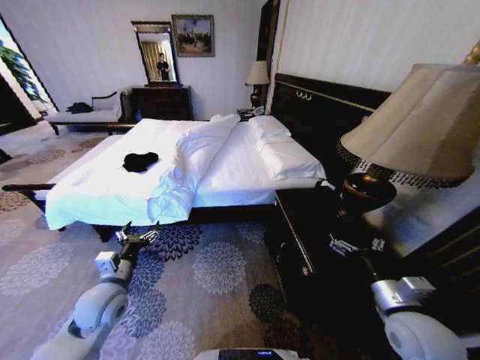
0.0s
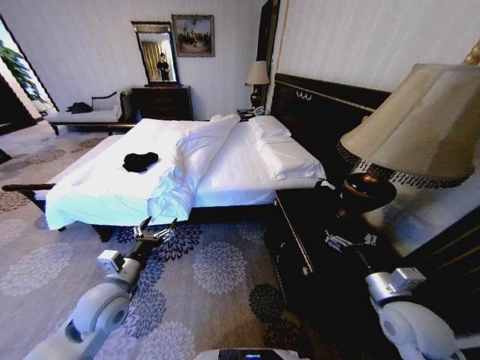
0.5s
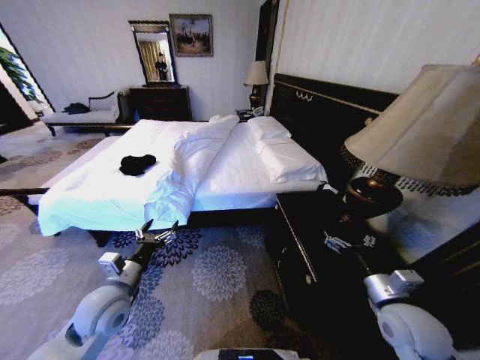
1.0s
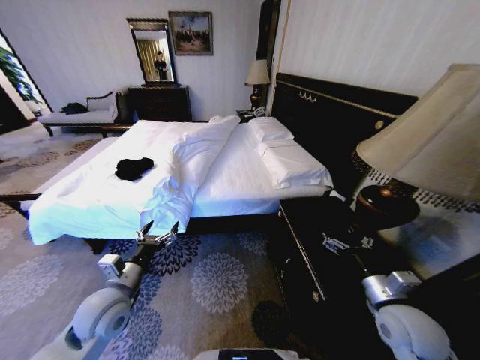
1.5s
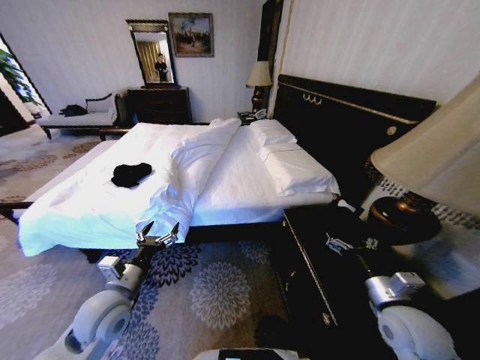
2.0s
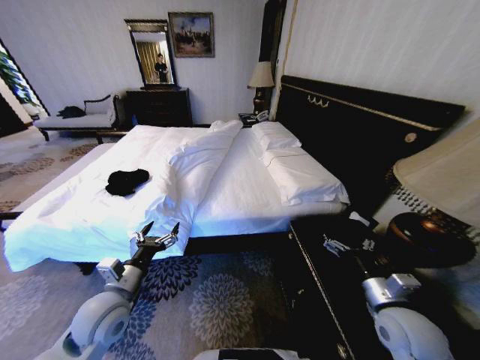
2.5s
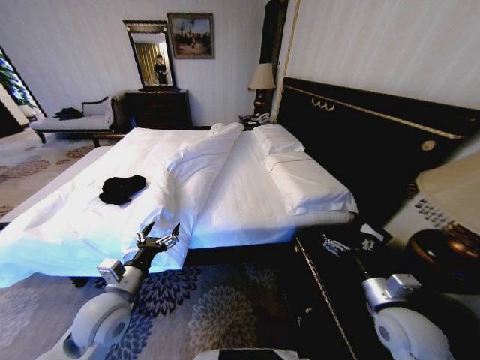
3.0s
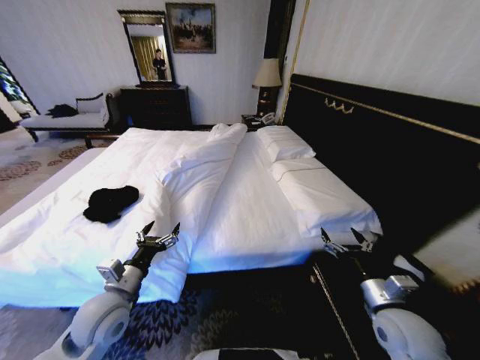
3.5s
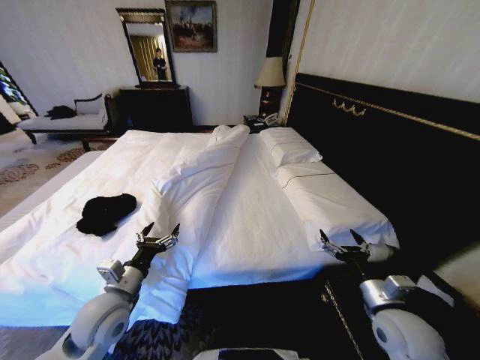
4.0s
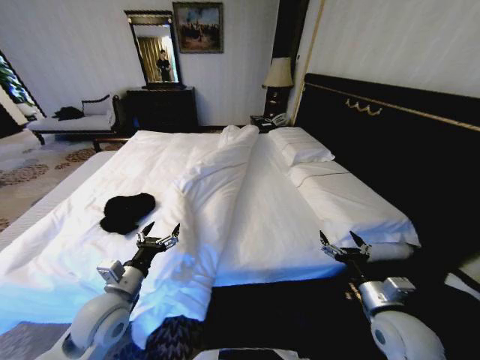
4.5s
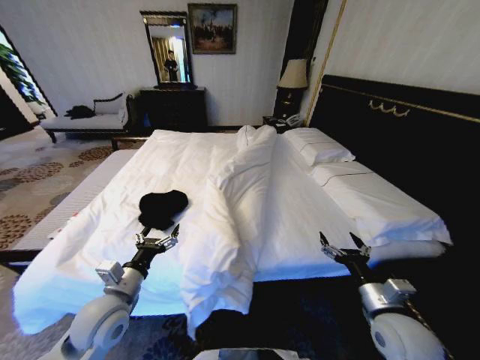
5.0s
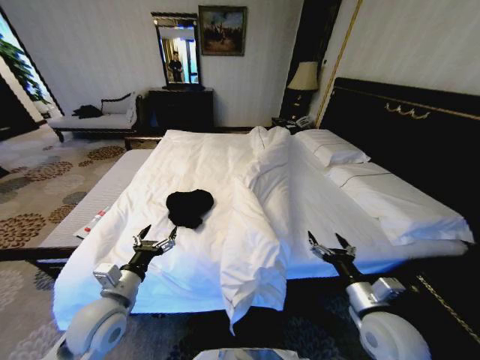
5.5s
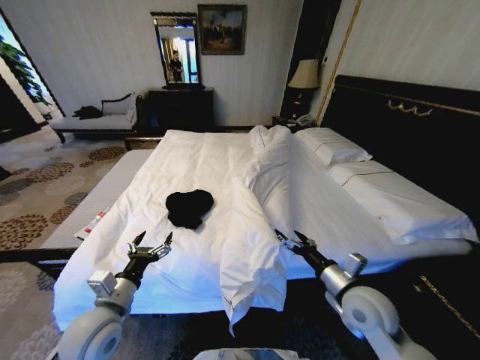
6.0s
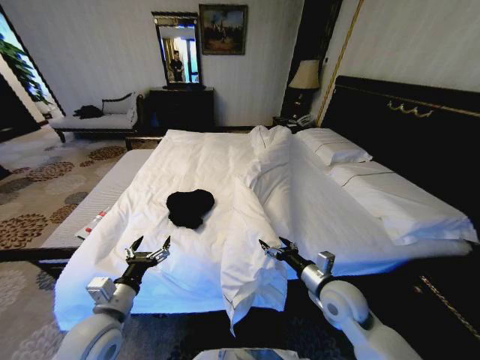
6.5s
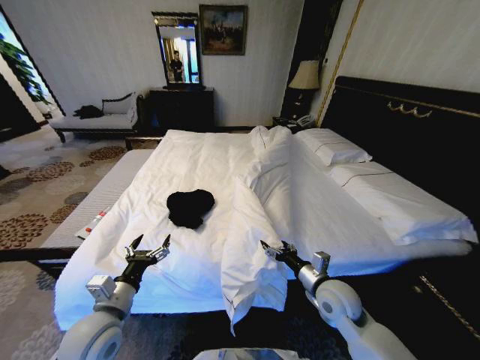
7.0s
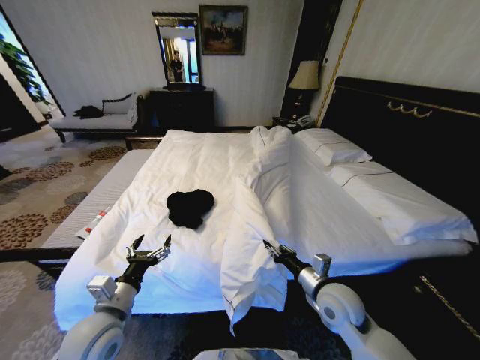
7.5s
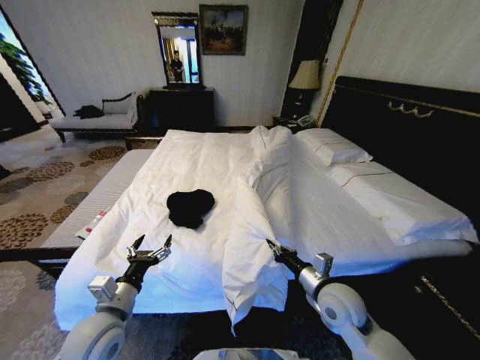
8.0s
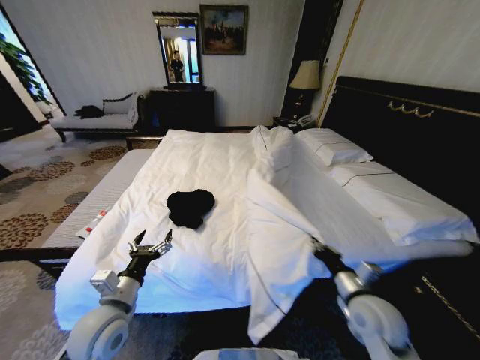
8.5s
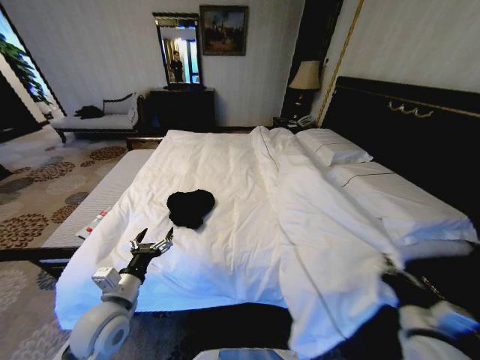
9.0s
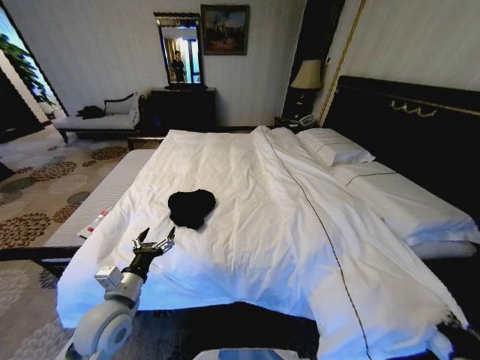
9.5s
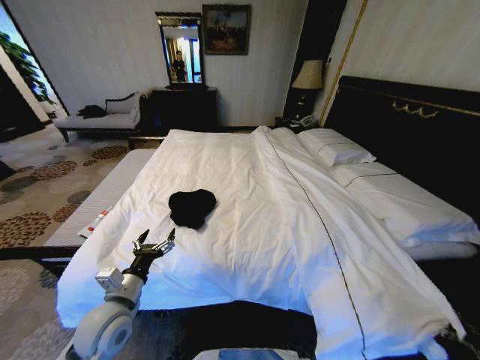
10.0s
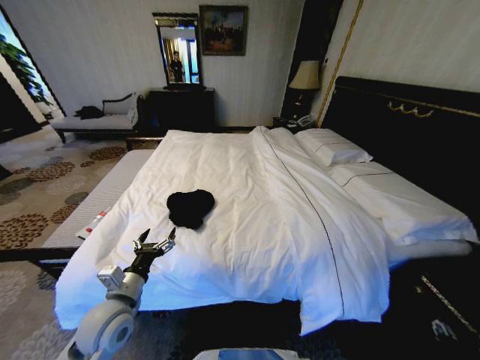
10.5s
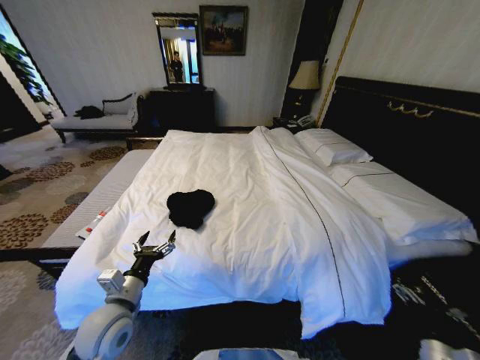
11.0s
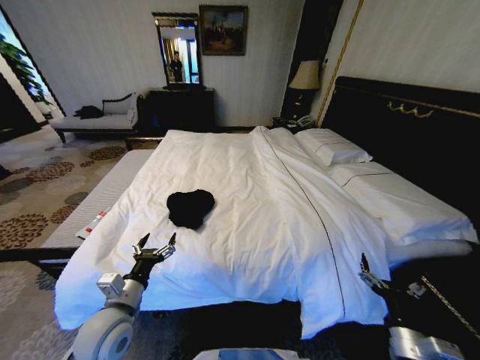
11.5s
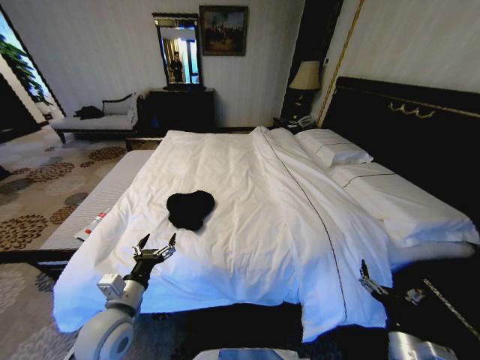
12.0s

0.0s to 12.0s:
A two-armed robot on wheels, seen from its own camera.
Task of the whole recording: Fold the clothes on the bed.
4.0s to 6.0s: The right gripper shifts roughly 5 cm to the left.
6.0s to 8.0s: The right gripper closes up.
8.0s to 10.0s: The right gripper goes some 35 cm to the right, backward and downward.
10.0s to 12.0s: The right gripper heads to the left, covering about 10 cm, and opens its fingers.

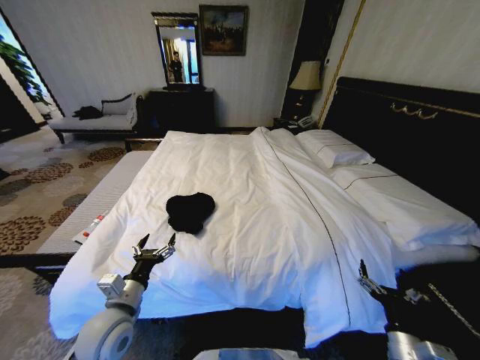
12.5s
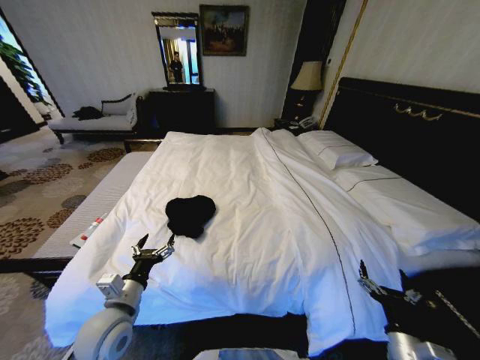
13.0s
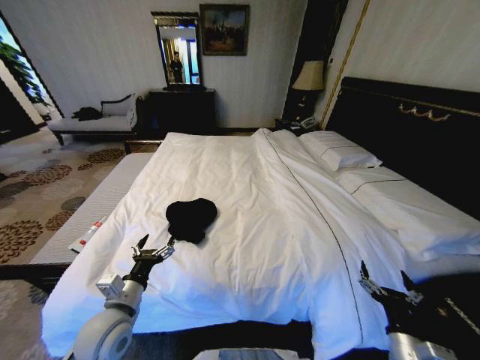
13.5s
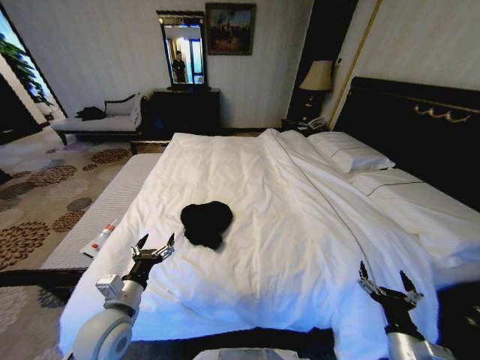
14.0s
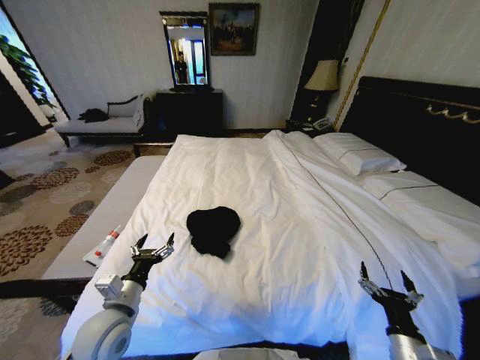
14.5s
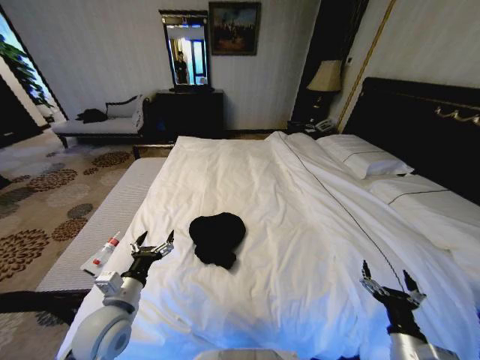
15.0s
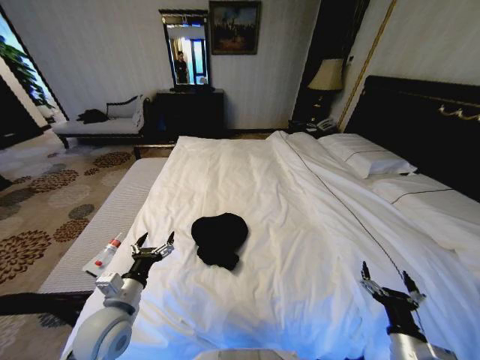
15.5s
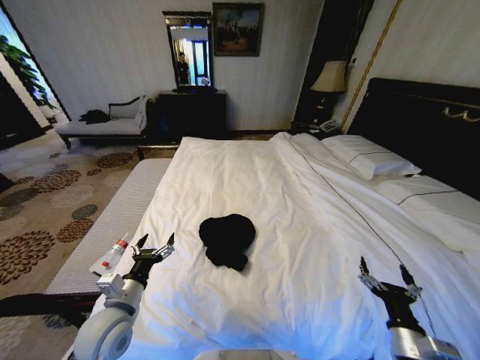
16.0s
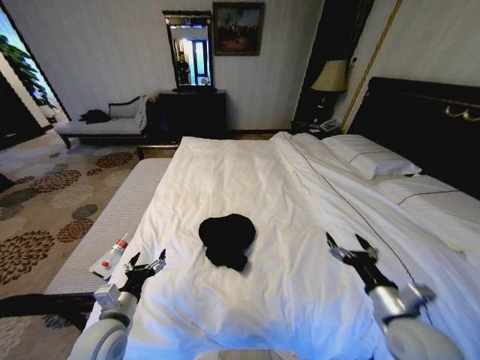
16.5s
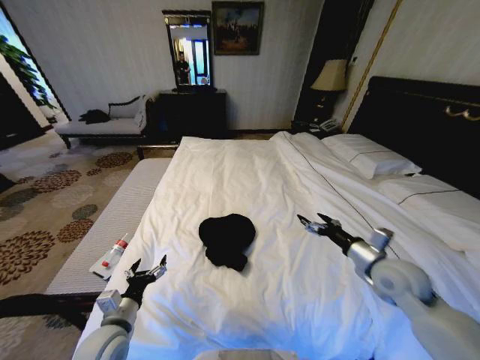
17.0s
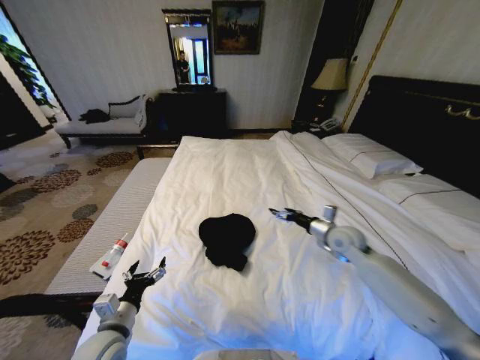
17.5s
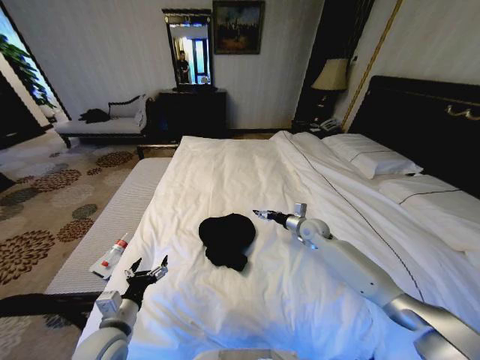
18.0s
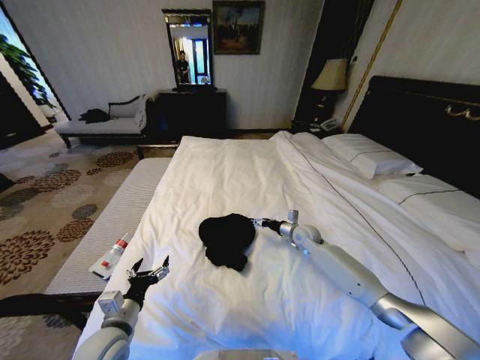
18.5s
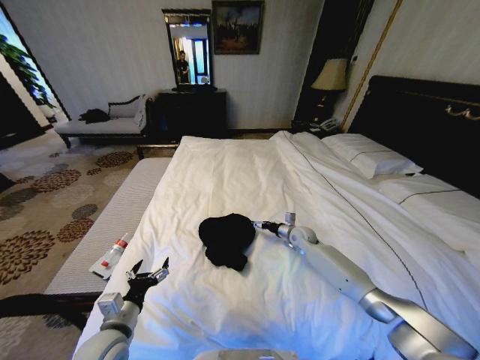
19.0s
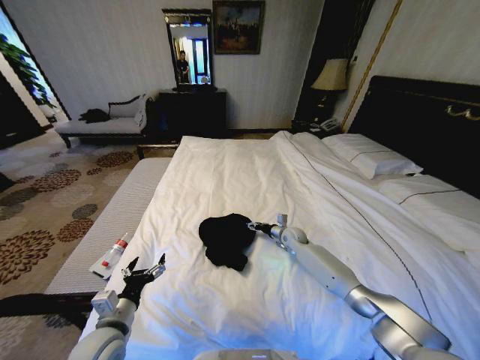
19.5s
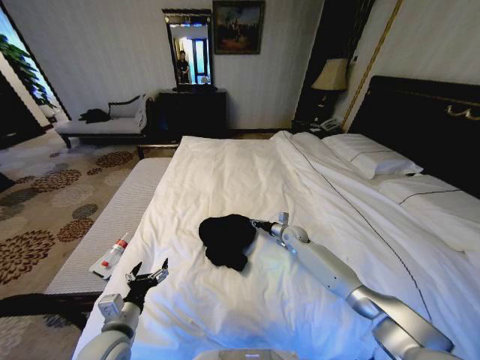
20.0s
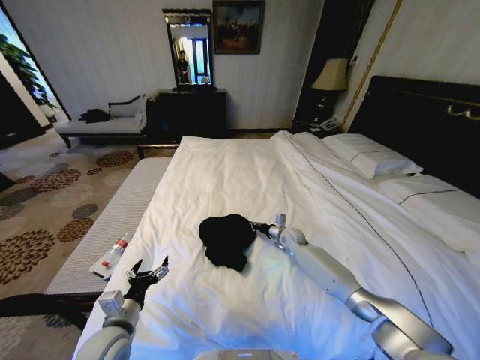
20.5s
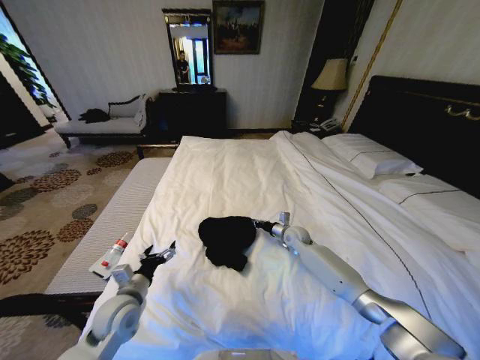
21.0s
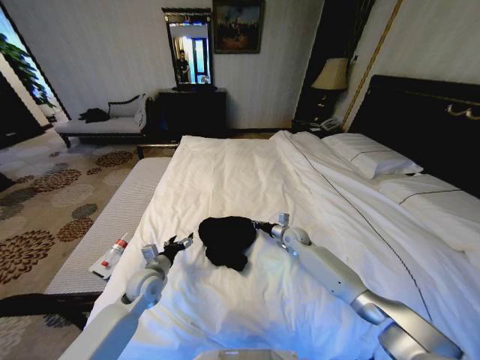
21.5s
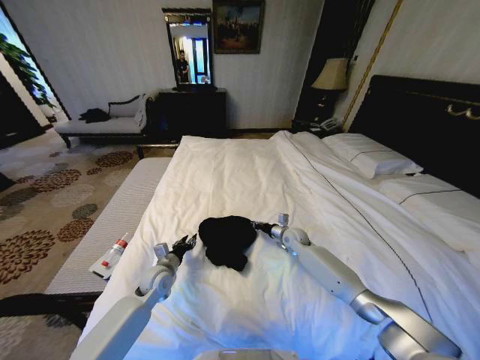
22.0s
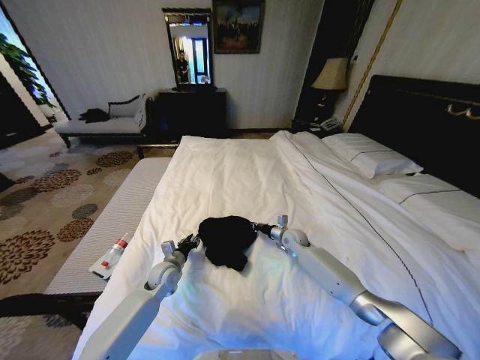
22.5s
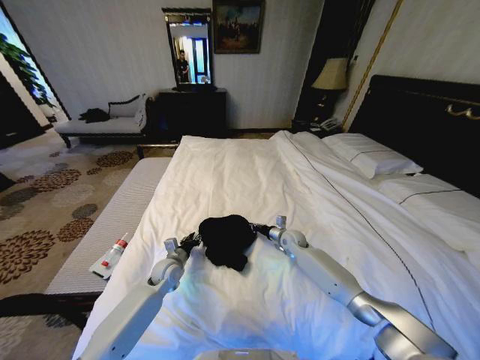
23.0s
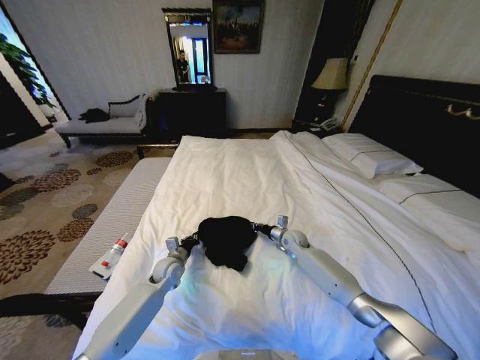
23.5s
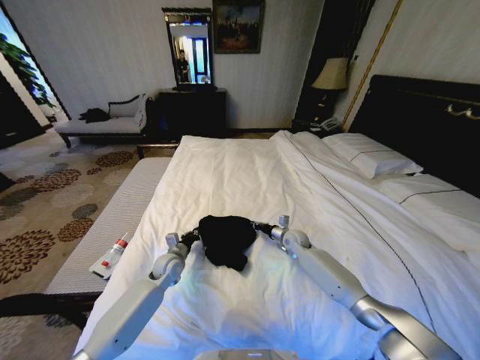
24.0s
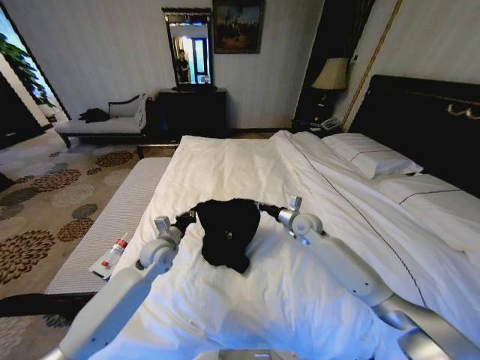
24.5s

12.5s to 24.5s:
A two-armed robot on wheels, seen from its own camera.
Task of the whole recording: Fold the clothes on the bed.
14.5s to 16.5s: The right gripper travels upward and forward by roughly 10 cm.
16.5s to 18.5s: The right gripper shifts roughly 30 cm forward.
18.5s to 20.5s: The right gripper shifts by approximately 5 cm, and closes.
20.5s to 22.5s: The left gripper moves forward, roughly 20 cm, and closes its fingers.
22.5s to 24.5s: The grippers both shift upward by roughly 10 cm. The left gripper closes.

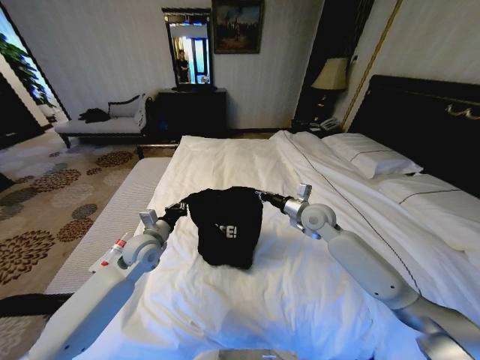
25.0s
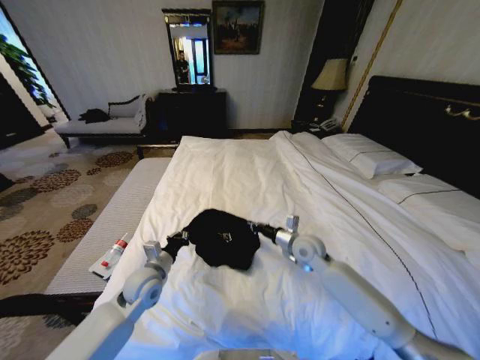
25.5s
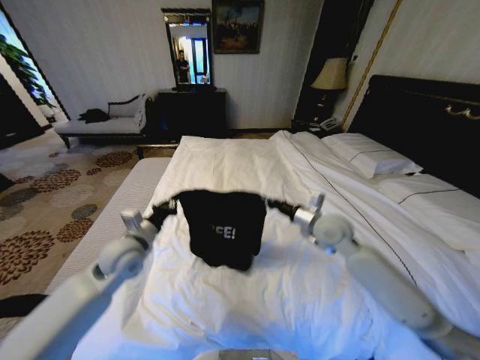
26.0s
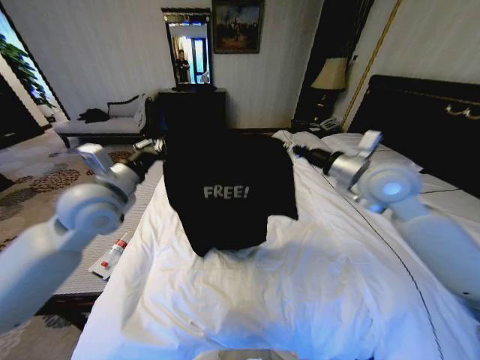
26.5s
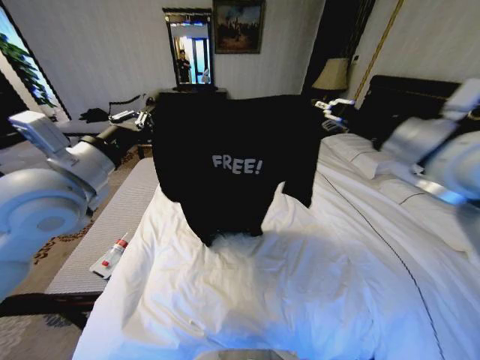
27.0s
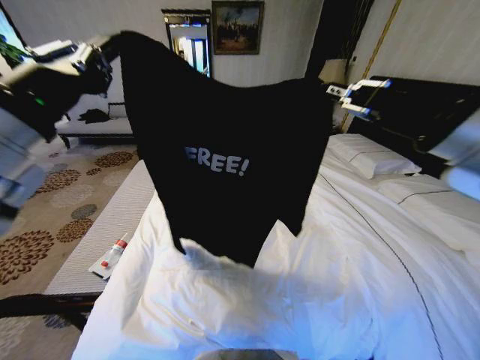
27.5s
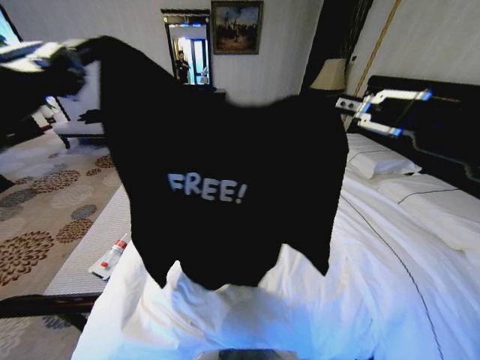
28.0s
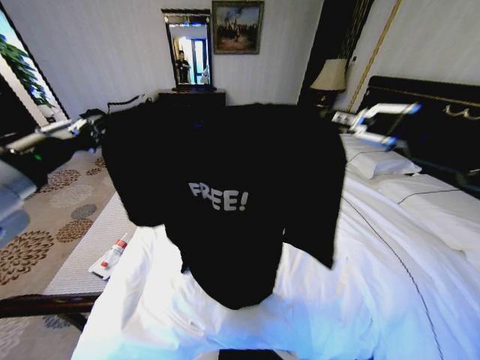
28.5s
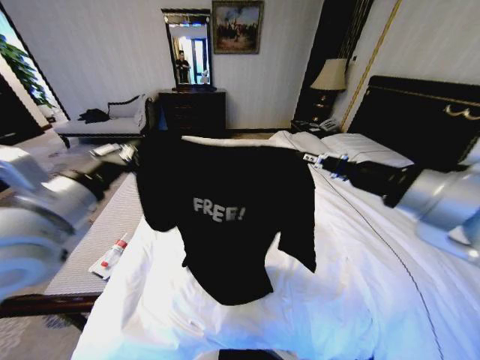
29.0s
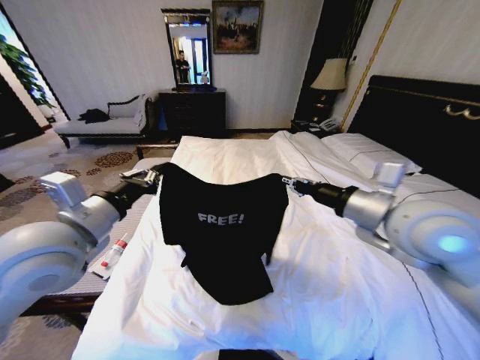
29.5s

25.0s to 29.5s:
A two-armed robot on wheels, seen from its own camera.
Task of the whole recording: Fold the clothes on the bed.
25.0s to 27.0s: The right gripper heads upward and backward, covering about 30 cm. The left gripper shifts roughly 25 cm upward.
27.0s to 29.5s: The right gripper travels downward by roughly 10 cm, and goes backward and returns, approximately 15 cm each way; the left gripper goes some 5 cm downward.
